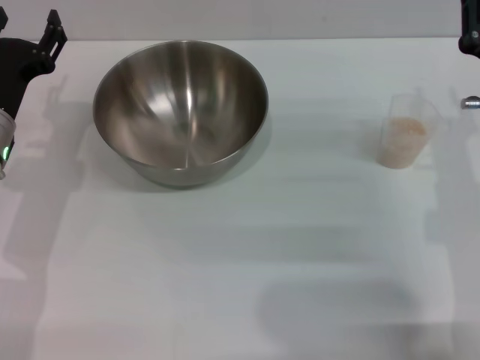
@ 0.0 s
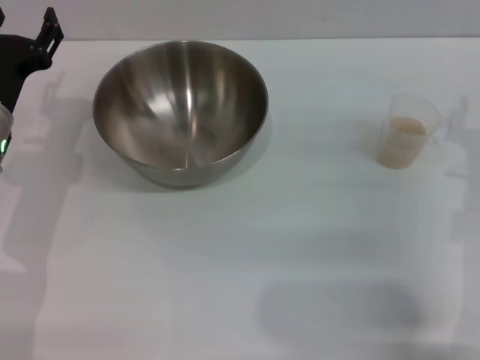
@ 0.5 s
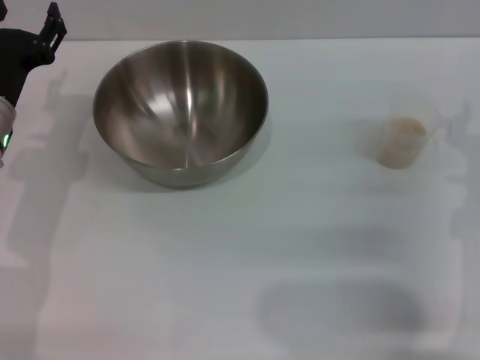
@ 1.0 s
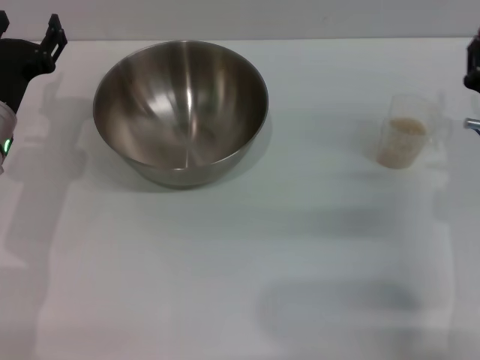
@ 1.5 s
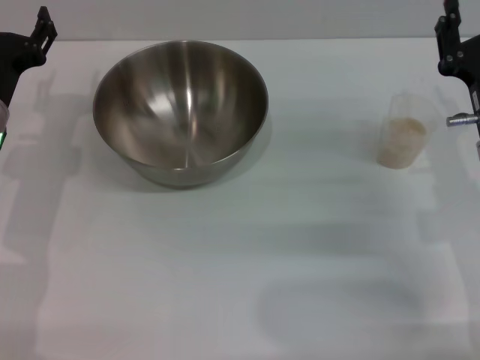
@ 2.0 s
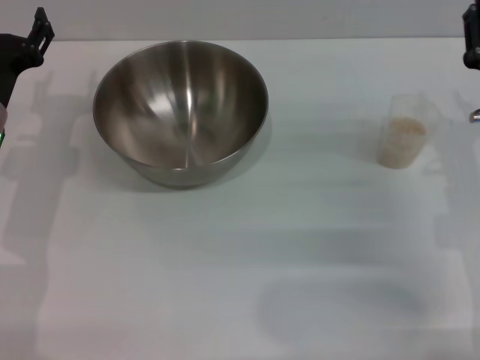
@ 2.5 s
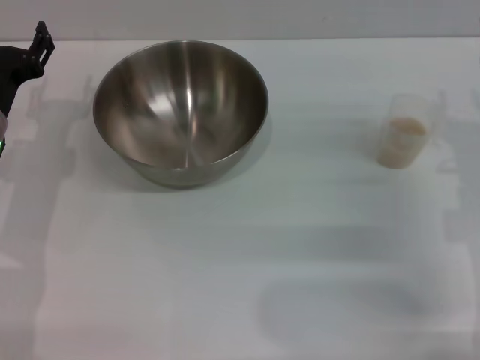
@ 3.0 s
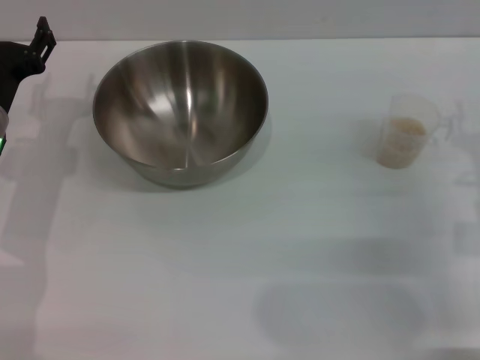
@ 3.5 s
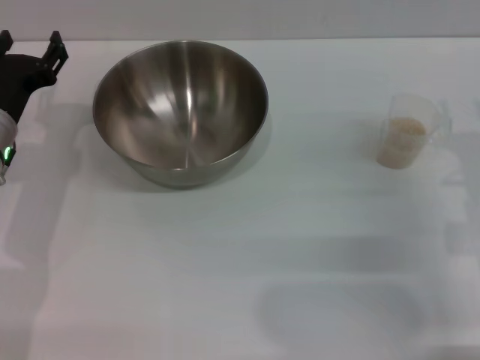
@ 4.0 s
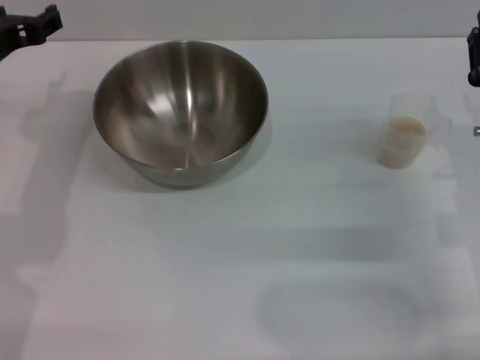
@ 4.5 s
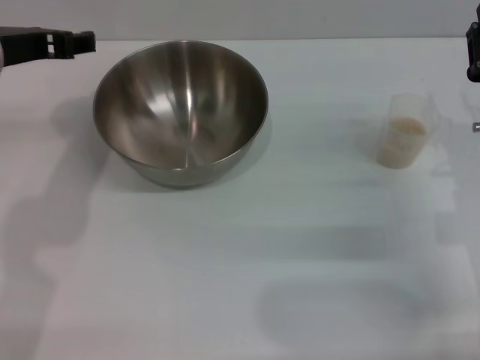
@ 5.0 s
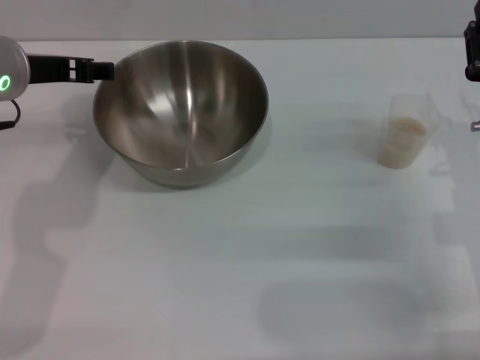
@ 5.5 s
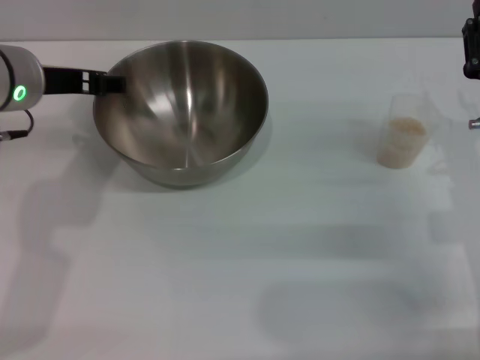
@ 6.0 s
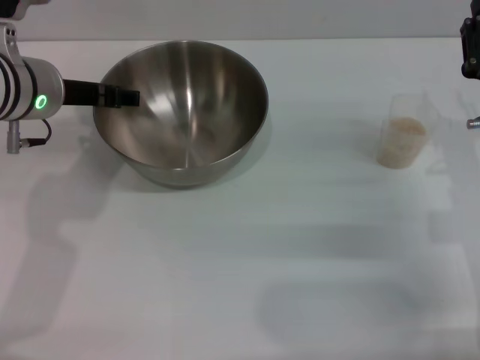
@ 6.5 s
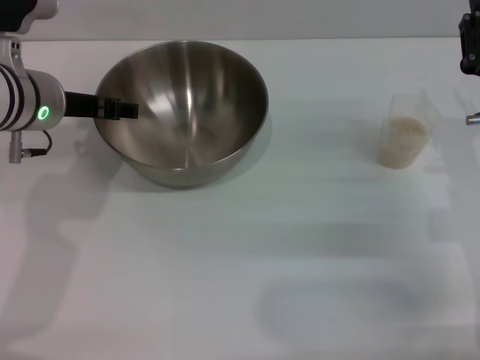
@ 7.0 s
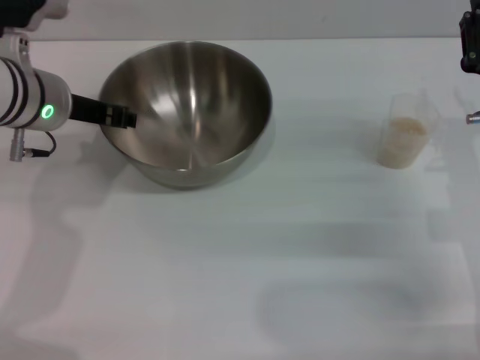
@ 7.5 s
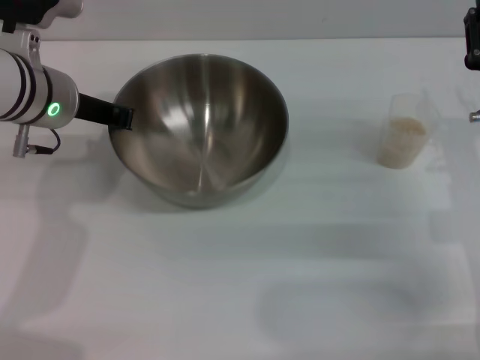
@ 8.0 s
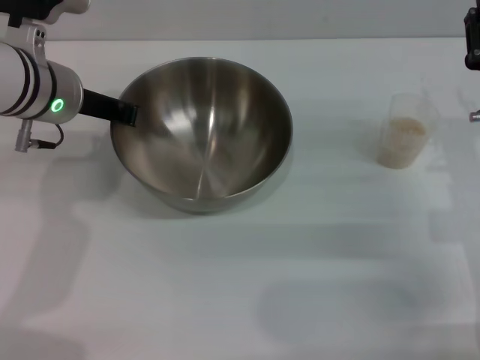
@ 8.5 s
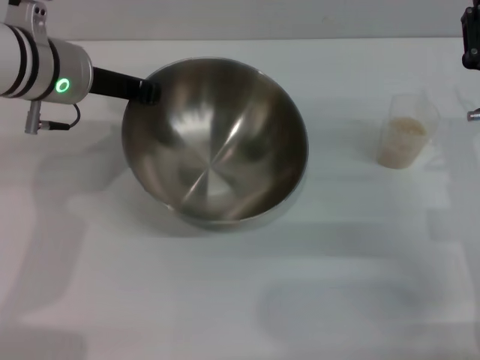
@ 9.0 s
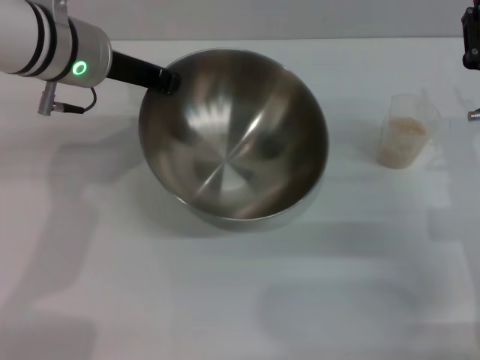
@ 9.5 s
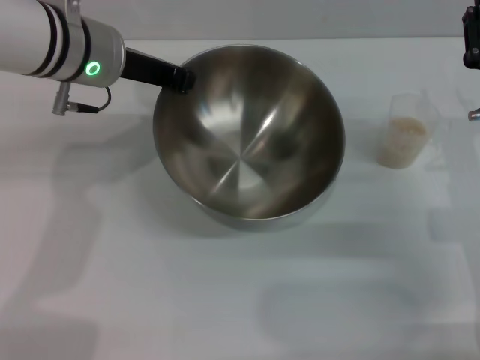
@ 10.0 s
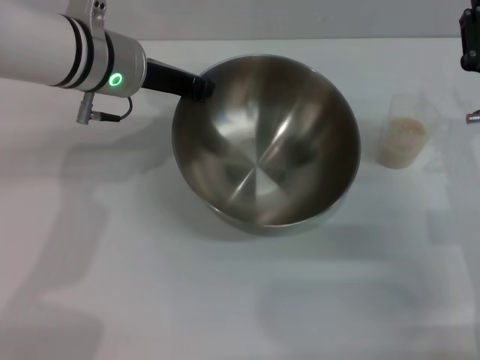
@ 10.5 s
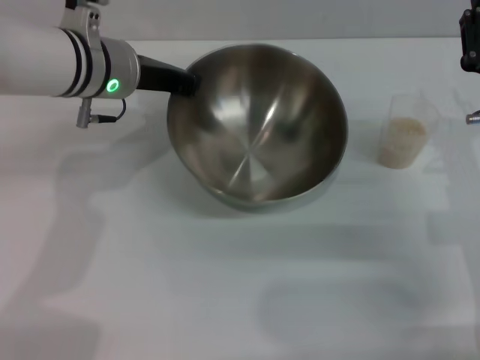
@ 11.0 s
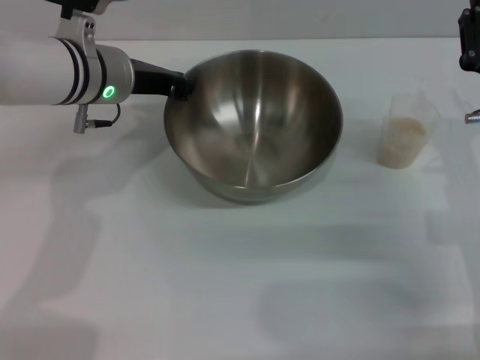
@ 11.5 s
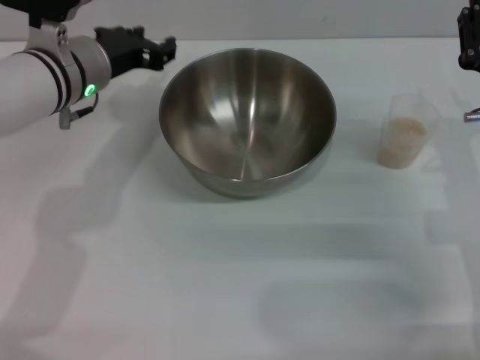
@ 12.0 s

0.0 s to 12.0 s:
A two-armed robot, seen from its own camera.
Task of the whole recording: Place the bowl in the middle of the table with one hand and pour the rice from the grain cup into it with the other hand.
Step, 0.0 to 9.0 s: Pick up the bowl with the left gripper.
Step, 9.5 to 11.5 s: Place the bowl in the center of view with the left gripper.
2.0 to 4.0 s: There are only small adjustments of the grippers.
4.0 to 6.0 s: The left gripper travels upward by roughly 10 cm.
6.0 to 8.0 s: The left gripper closes its fingers.
8.0 to 10.0 s: The left gripper changes place by some 5 cm.
10.0 to 12.0 s: The left gripper shifts by about 5 cm, and opens.

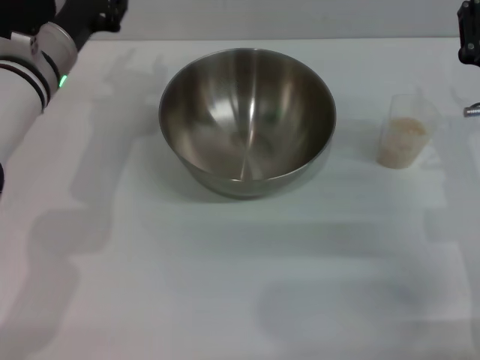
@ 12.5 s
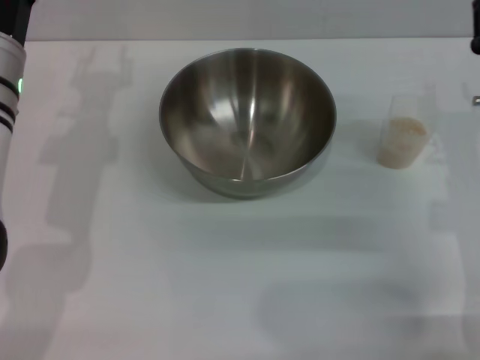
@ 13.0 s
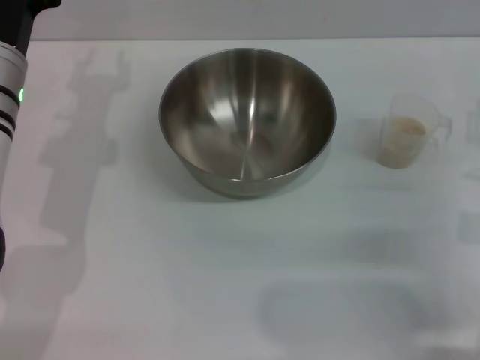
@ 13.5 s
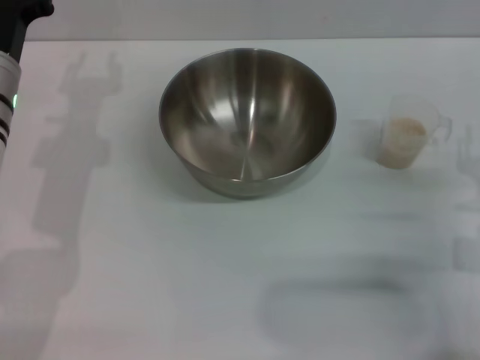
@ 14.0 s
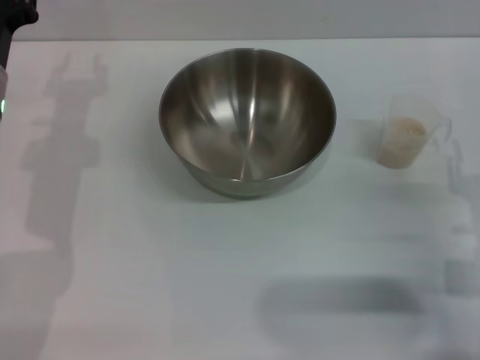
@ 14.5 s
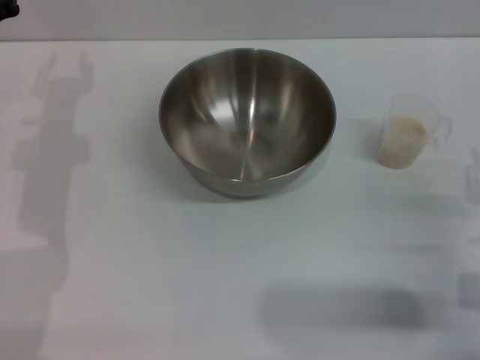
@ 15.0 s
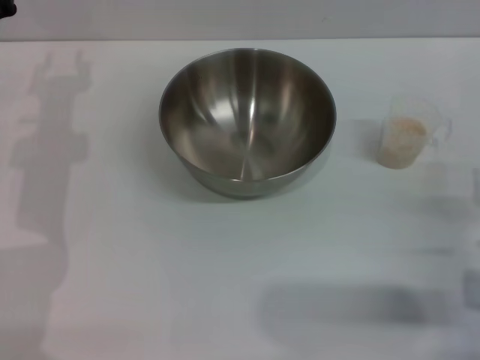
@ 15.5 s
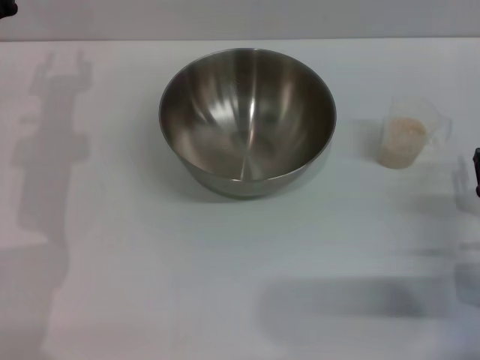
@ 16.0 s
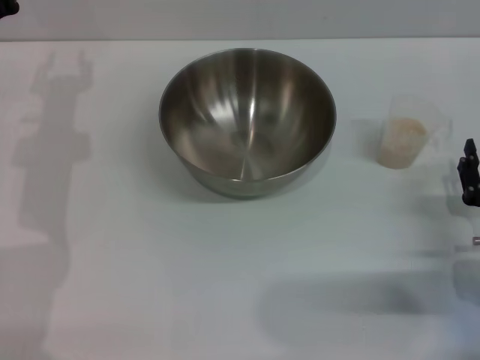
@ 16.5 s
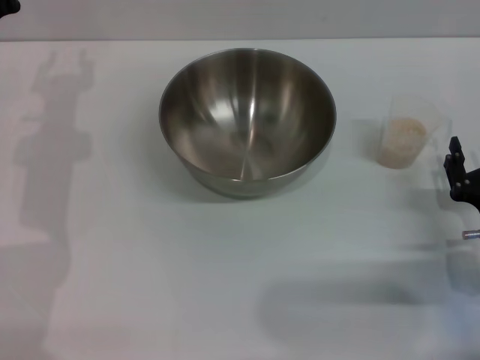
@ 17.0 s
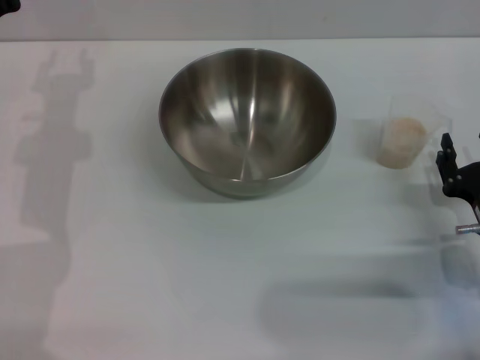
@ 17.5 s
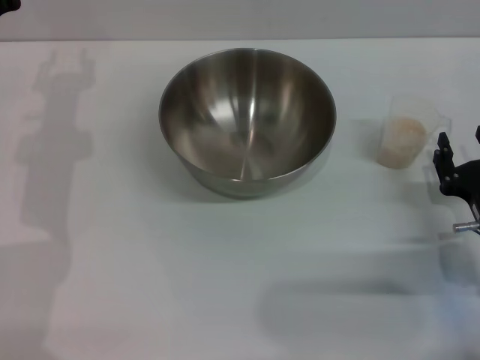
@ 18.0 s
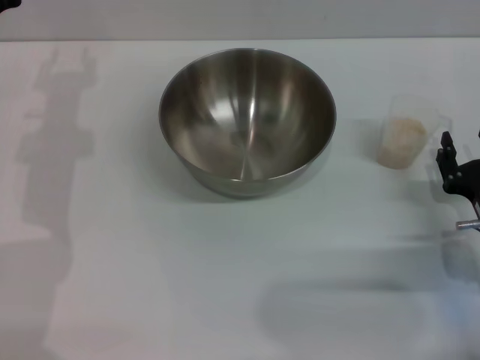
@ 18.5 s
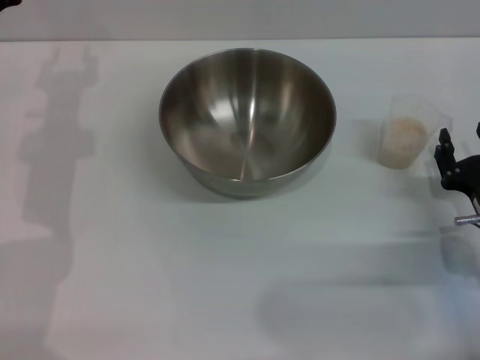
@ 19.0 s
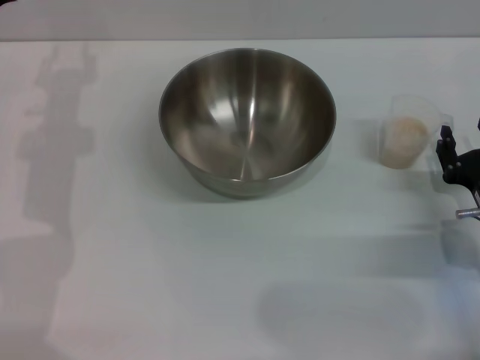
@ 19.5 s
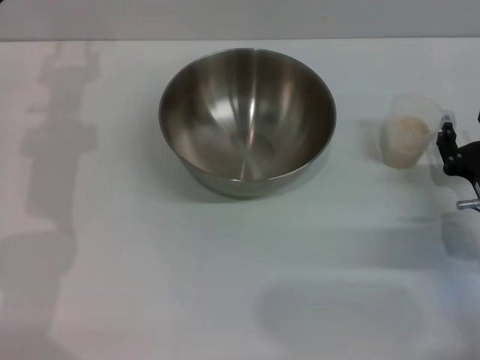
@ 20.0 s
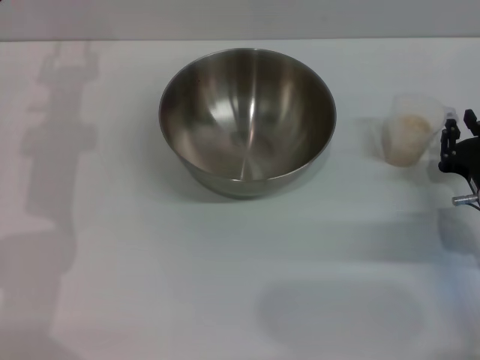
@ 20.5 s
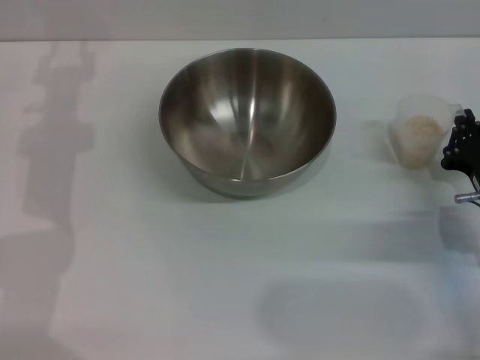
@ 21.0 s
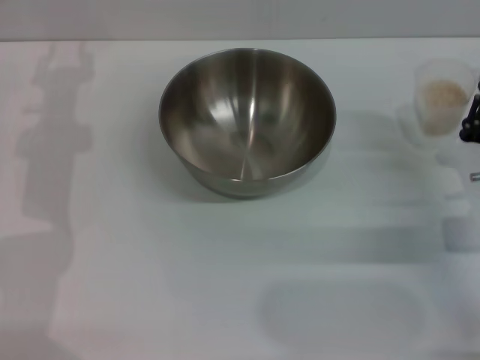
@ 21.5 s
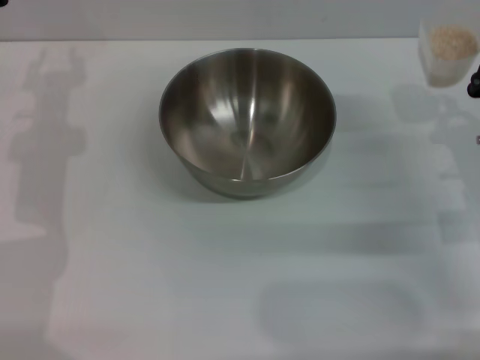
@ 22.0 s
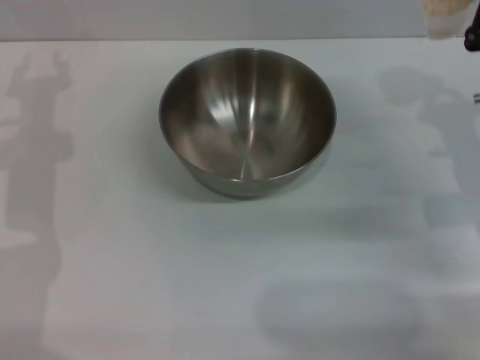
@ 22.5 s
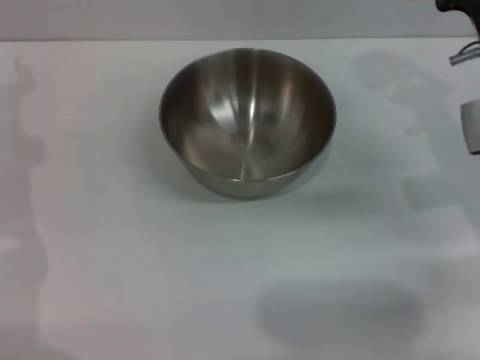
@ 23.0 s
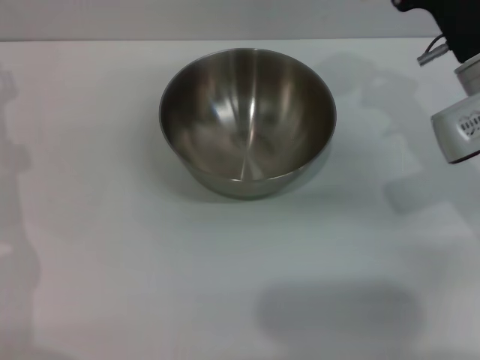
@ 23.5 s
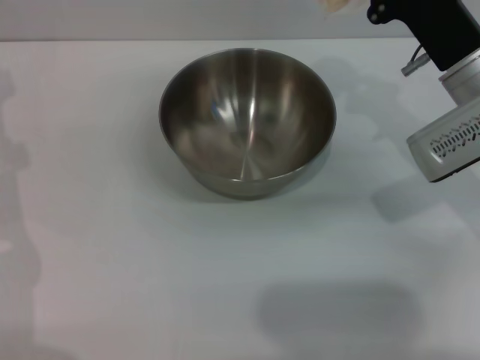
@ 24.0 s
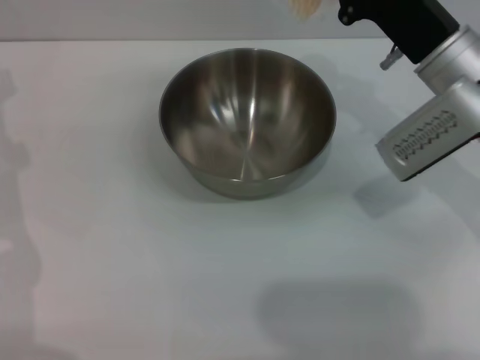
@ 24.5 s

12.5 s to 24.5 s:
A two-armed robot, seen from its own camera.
Task of the whole recording: Place the bowl in the middle of the table with one hand and pour the rice from the grain cup into it with the other hand.
Step, 12.5 to 22.0 s: Pick up the cup with rice in it with the right gripper.
12.5 to 14.5 s: The right gripper is displaced backward by roughly 10 cm. Meanwhile the left gripper moves to the left, about 5 cm.
14.5 to 20.5 s: The grippers move only a little.
20.5 to 22.5 s: The right gripper shifts roughly 10 cm upward and forward, and closes.
22.5 to 24.5 s: The right gripper moves to the left and forward, some 10 cm.

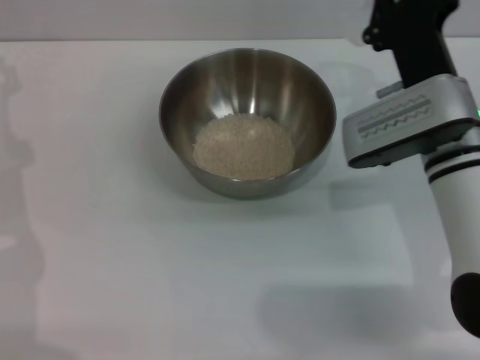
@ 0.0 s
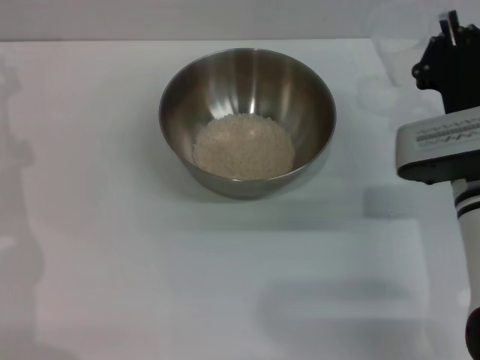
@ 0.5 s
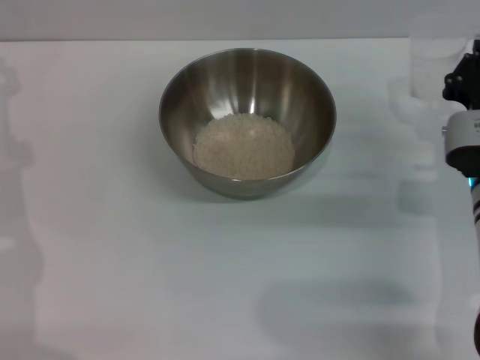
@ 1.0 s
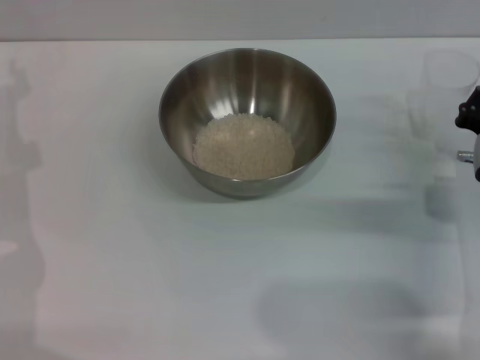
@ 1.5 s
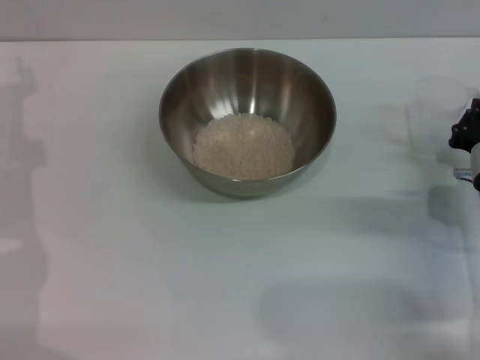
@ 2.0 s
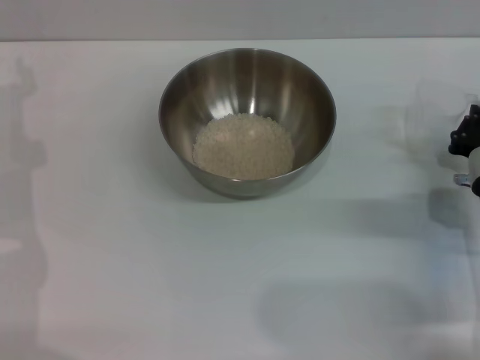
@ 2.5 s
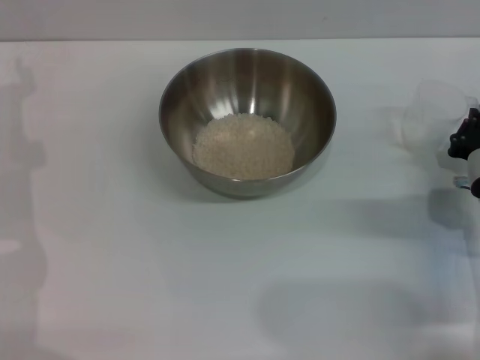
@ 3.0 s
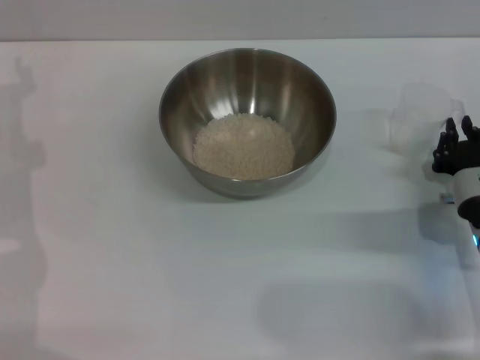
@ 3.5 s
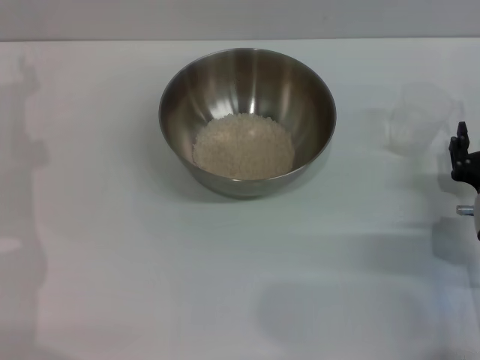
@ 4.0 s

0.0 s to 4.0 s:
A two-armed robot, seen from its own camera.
Task of the whole recording: Place the bowl in the middle of the table with one hand and pour the rice from the grain cup into it with the other hand.
0.0 to 2.0 s: The right gripper moves to the right and downward, about 10 cm.
2.0 to 4.0 s: The right gripper opens.
